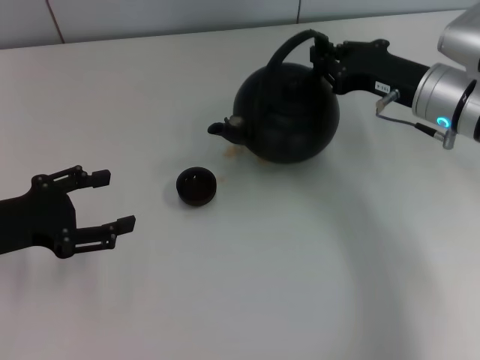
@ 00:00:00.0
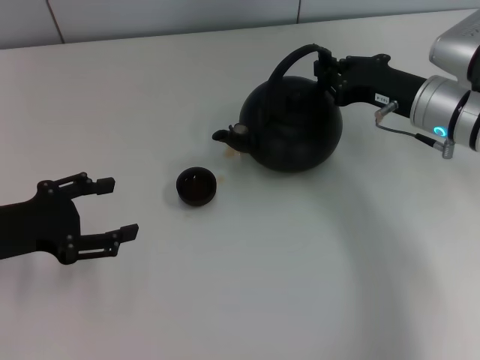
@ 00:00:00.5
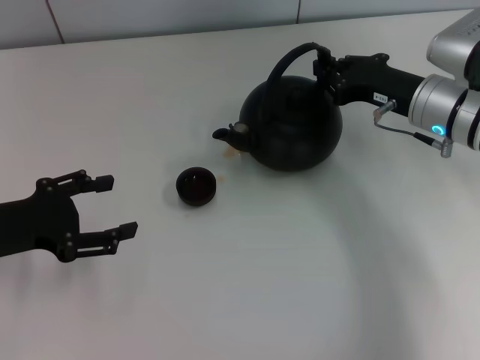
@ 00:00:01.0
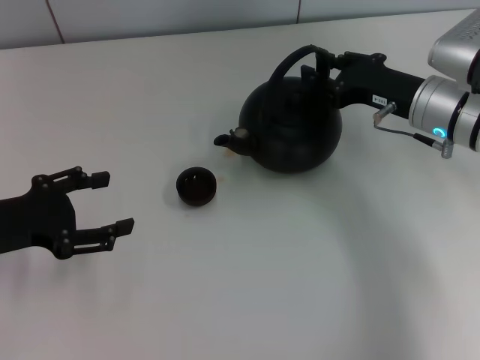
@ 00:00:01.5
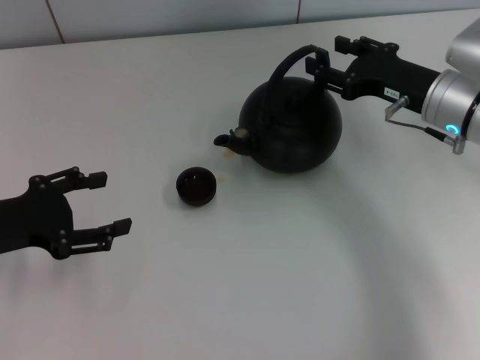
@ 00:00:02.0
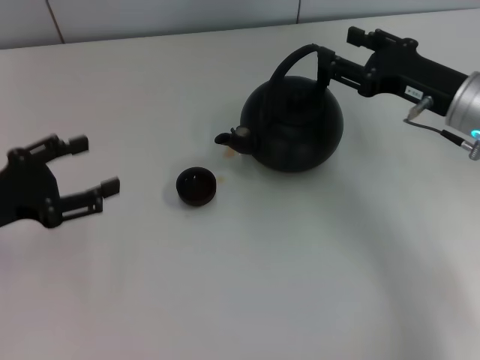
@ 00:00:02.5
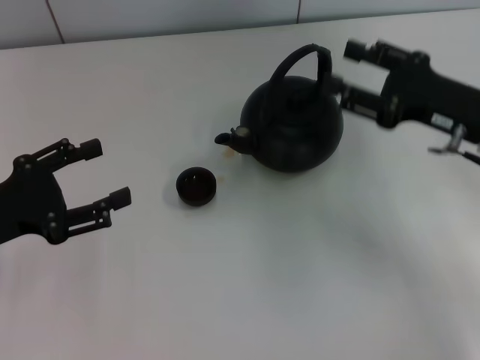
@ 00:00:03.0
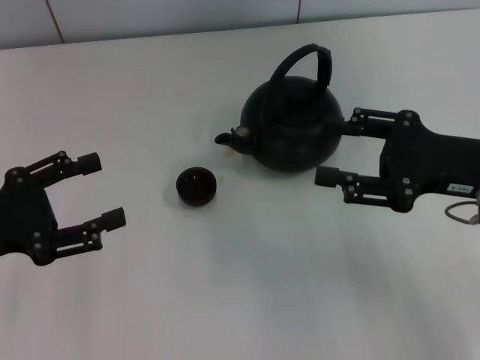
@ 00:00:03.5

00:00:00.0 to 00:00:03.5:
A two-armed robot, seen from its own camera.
Task of the whole recording: Grasp the handle of the teapot with one hand and pour tea into the teacup.
Step, 00:00:00.0 to 00:00:02.5: Put down the teapot with the right gripper.
00:00:00.0 to 00:00:02.0: The right gripper opens.
00:00:02.0 to 00:00:03.5: The right gripper shifts some 10 cm backward.

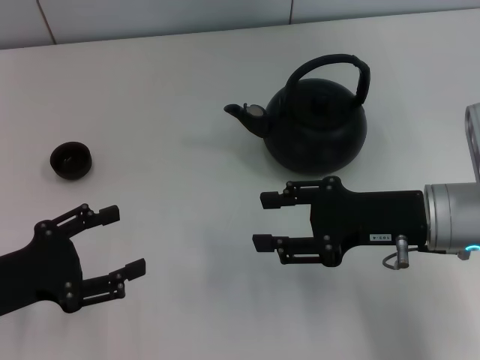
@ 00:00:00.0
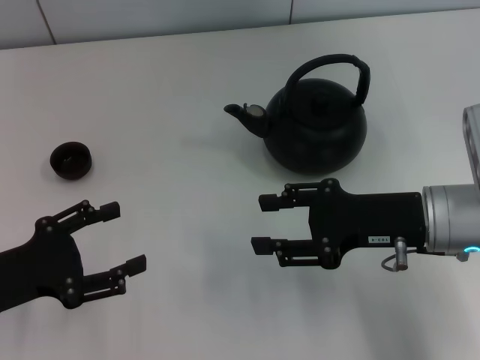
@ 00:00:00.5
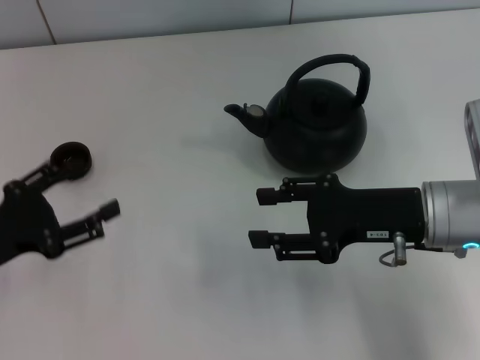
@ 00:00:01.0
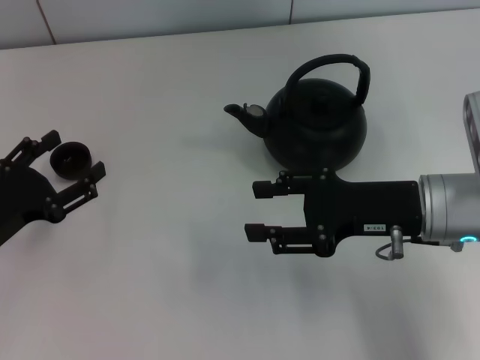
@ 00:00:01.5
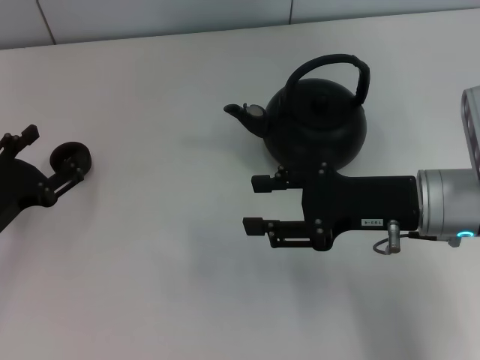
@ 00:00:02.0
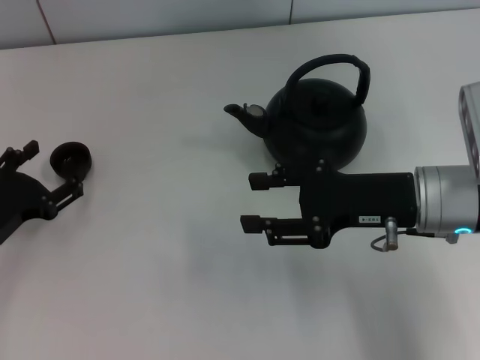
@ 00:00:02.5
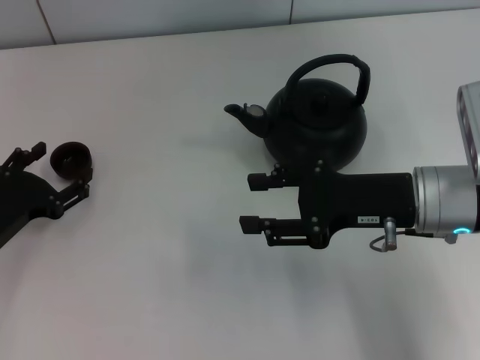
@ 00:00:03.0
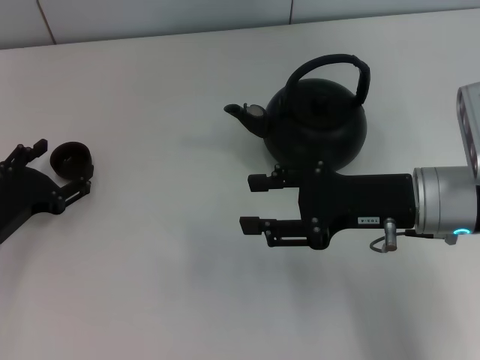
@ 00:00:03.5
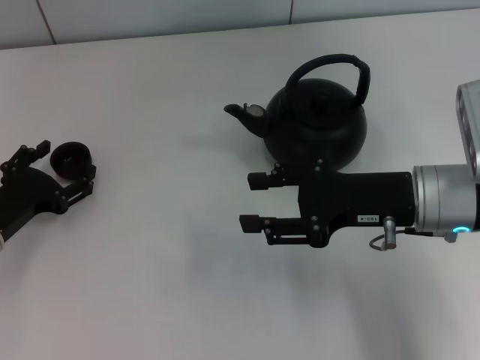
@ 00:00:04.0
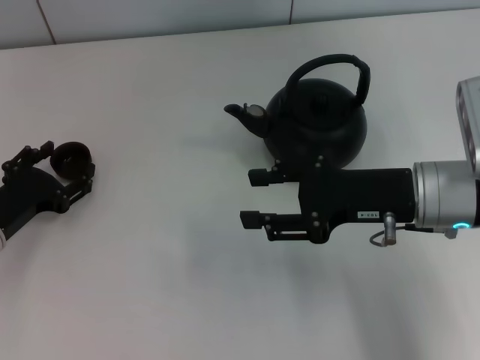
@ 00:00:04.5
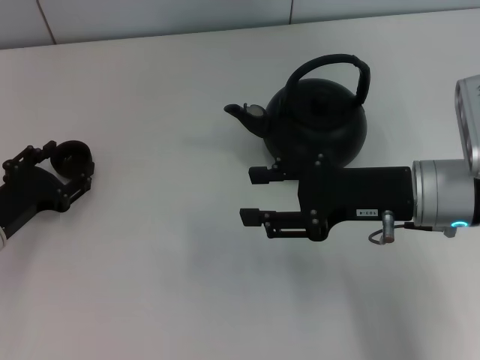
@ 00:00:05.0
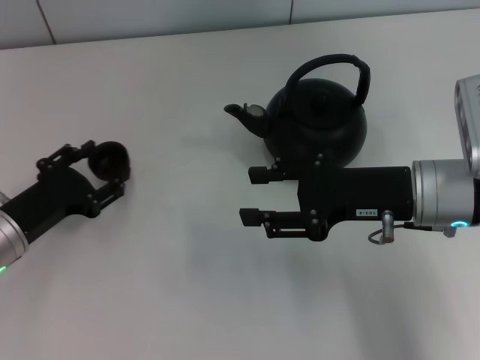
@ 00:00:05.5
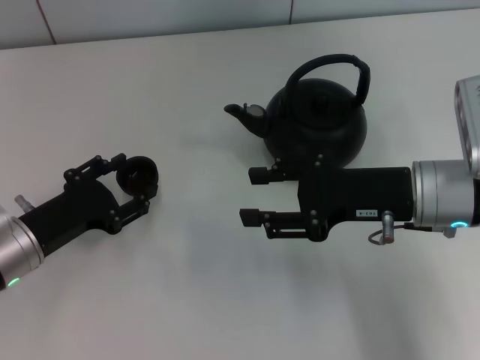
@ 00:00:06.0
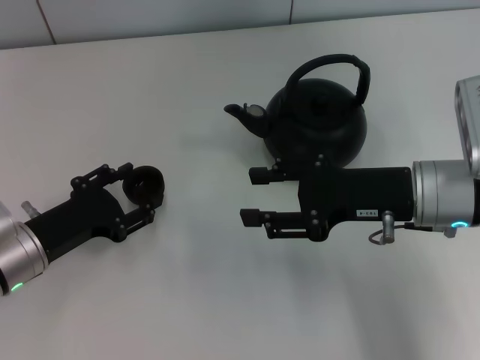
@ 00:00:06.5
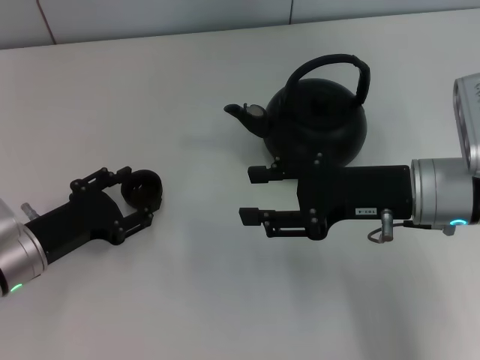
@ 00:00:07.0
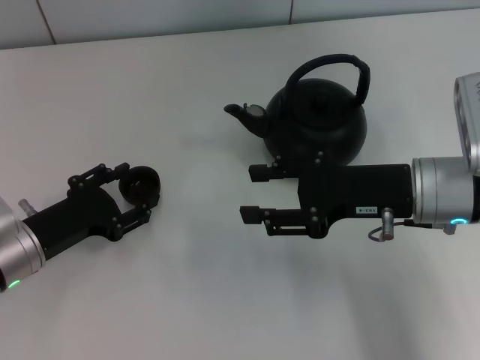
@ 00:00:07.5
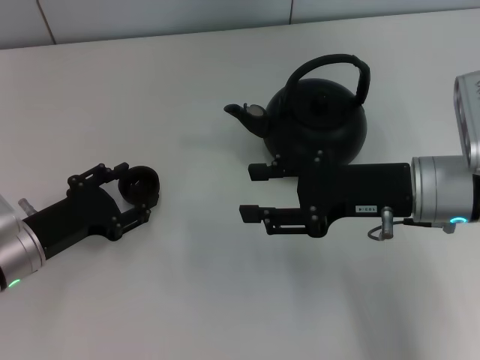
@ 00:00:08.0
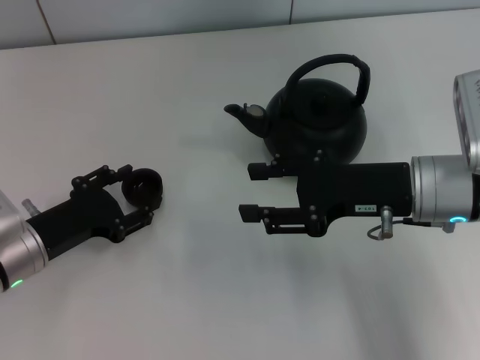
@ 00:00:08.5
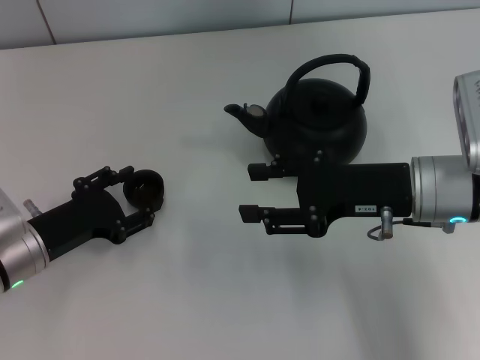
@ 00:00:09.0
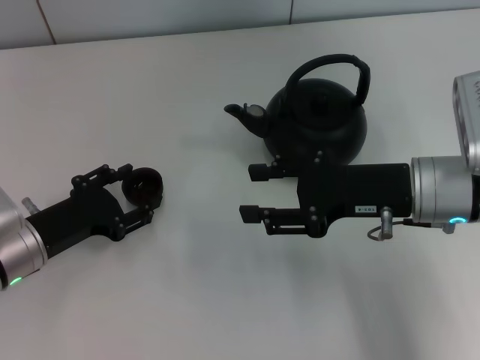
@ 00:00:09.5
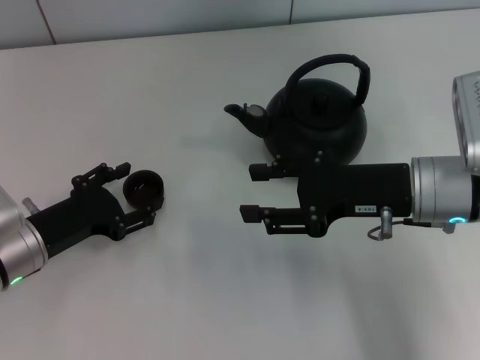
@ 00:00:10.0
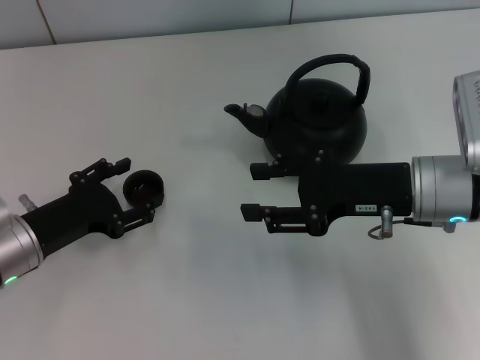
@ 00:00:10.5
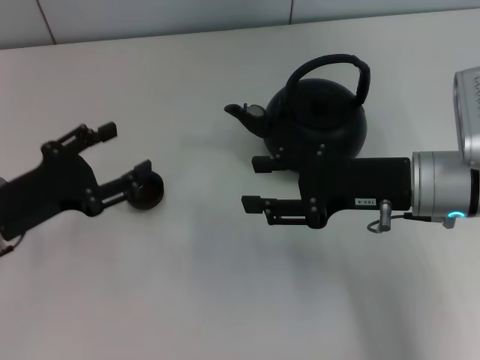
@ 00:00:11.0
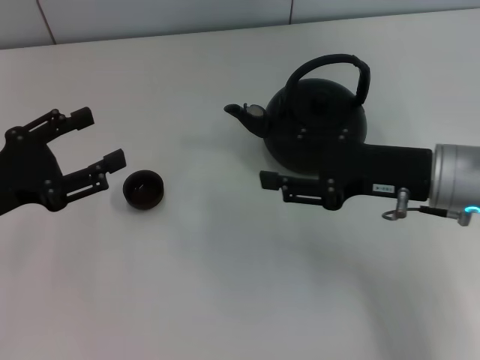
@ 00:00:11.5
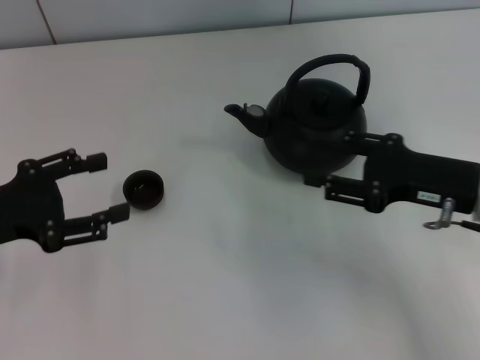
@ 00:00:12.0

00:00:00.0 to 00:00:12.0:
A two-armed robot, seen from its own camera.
Task of the whole recording: Grasp the handle of the teapot with one hand and pour tea into the teacup.
Step, 00:00:00.0 to 00:00:05.0: Pick up the teacup with the left gripper.
Step, 00:00:05.5 to 00:00:10.5: Place the teacup in the center of view with the left gripper.
00:00:00.0 to 00:00:02.0: The left gripper shifts by roughly 5 cm.
00:00:02.0 to 00:00:04.0: The grippers make only small movements.
00:00:04.0 to 00:00:06.0: The left gripper closes.
00:00:06.0 to 00:00:08.0: Both grippers stay about where they are.
00:00:08.0 to 00:00:10.0: Neither gripper changes place.
00:00:10.0 to 00:00:12.0: The left gripper heads upward and to the left, covering about 10 cm. Meanwhile the right gripper is displaced to the right by about 5 cm.

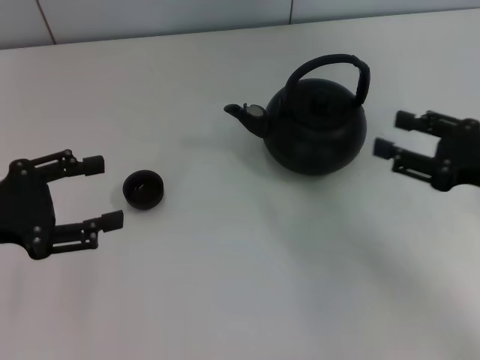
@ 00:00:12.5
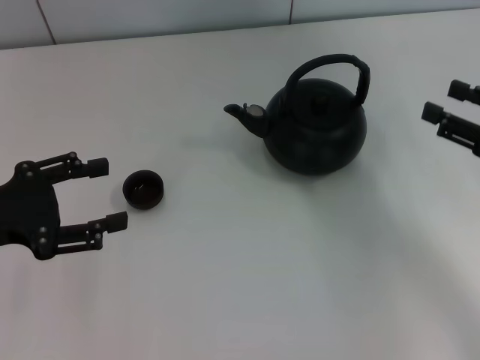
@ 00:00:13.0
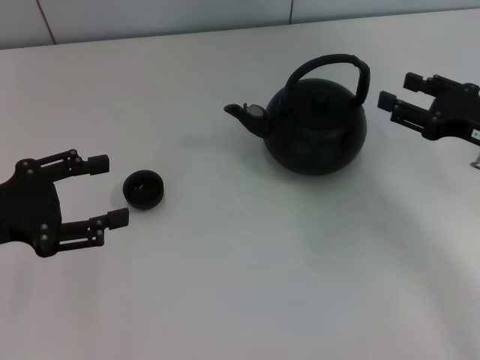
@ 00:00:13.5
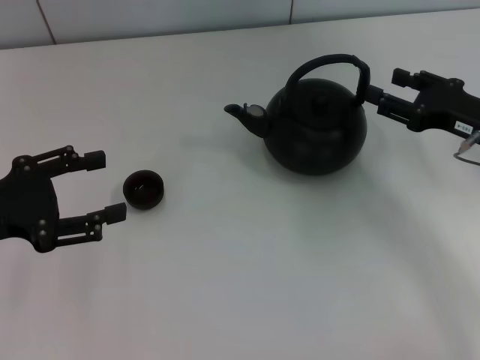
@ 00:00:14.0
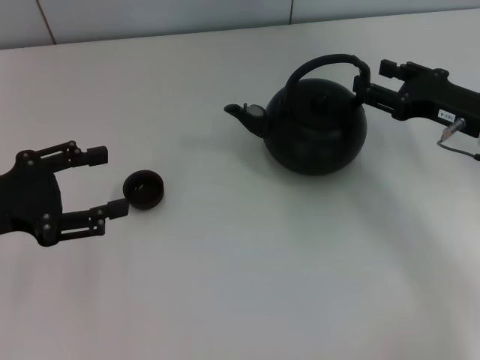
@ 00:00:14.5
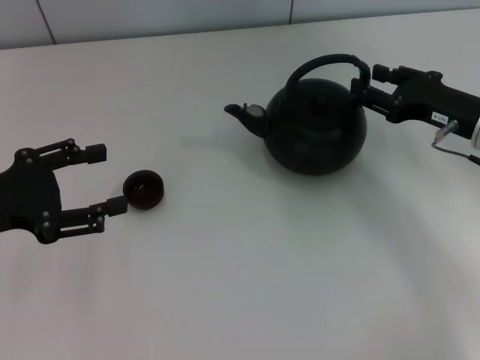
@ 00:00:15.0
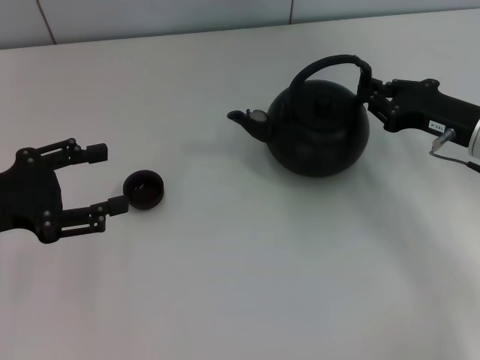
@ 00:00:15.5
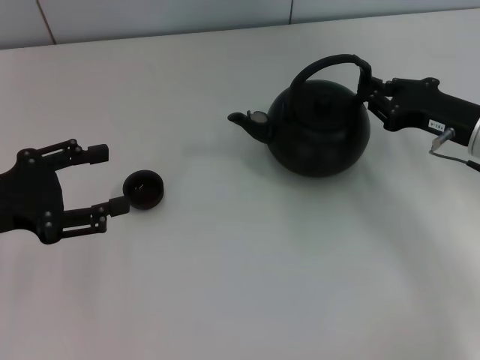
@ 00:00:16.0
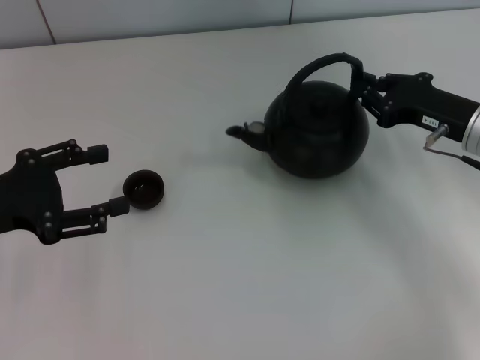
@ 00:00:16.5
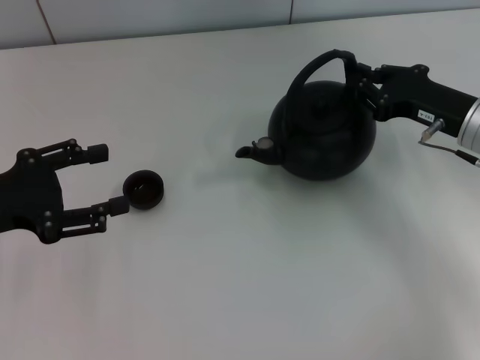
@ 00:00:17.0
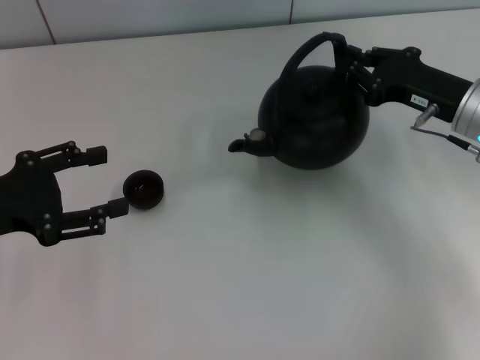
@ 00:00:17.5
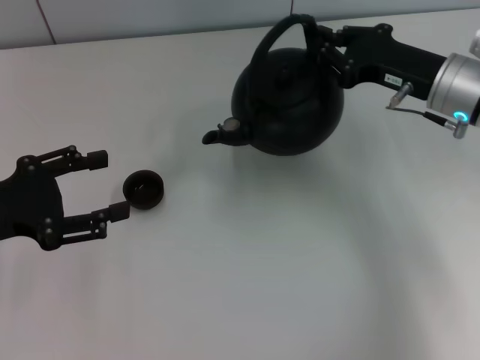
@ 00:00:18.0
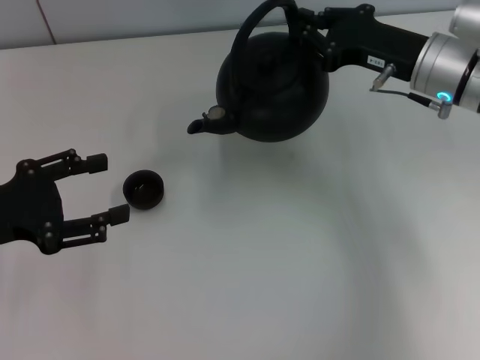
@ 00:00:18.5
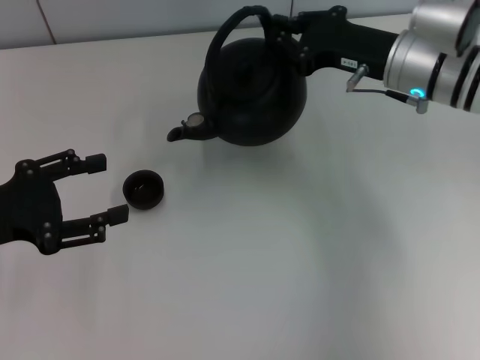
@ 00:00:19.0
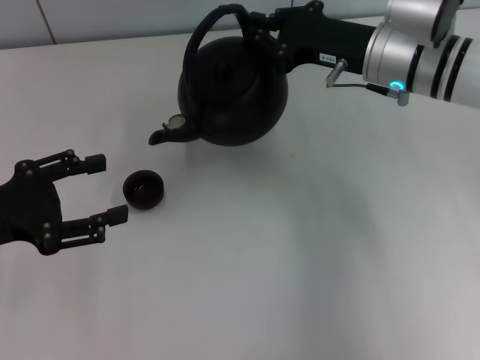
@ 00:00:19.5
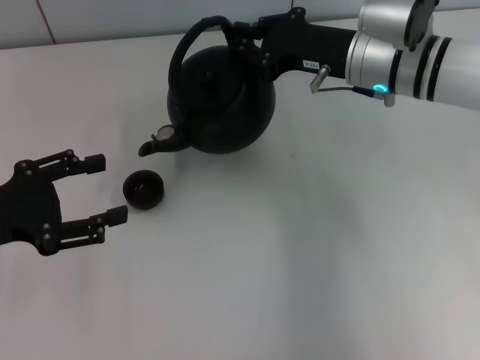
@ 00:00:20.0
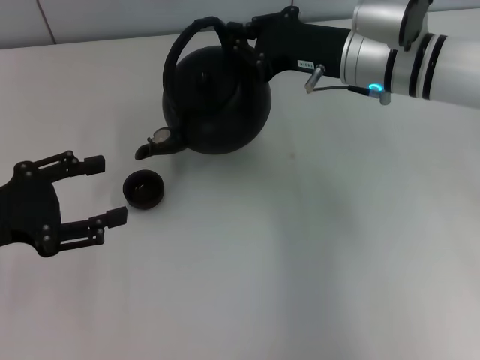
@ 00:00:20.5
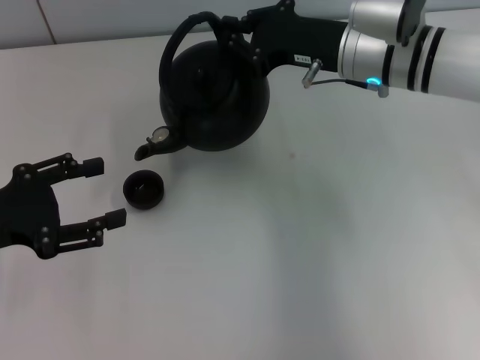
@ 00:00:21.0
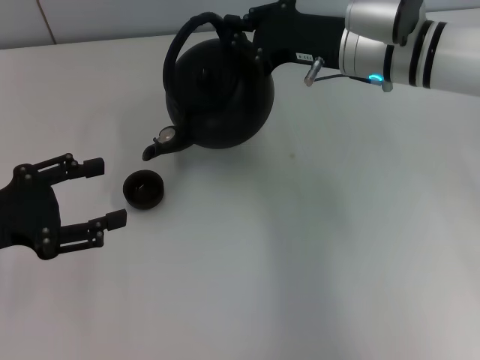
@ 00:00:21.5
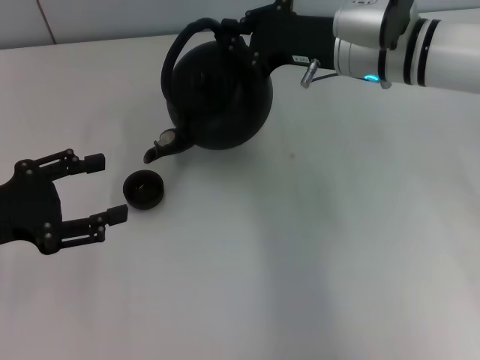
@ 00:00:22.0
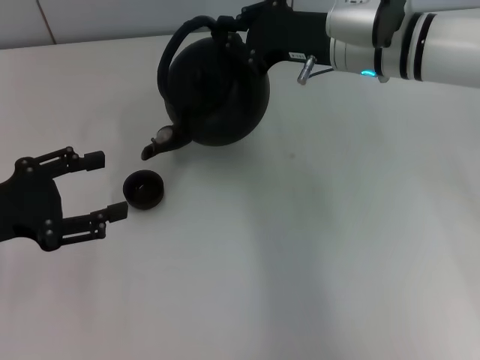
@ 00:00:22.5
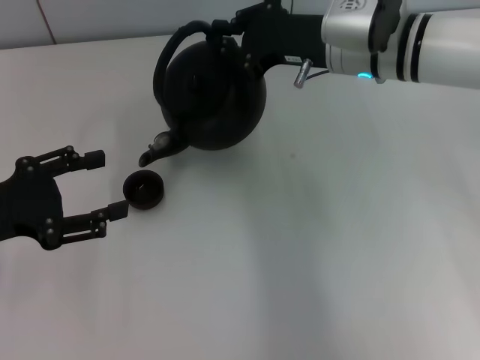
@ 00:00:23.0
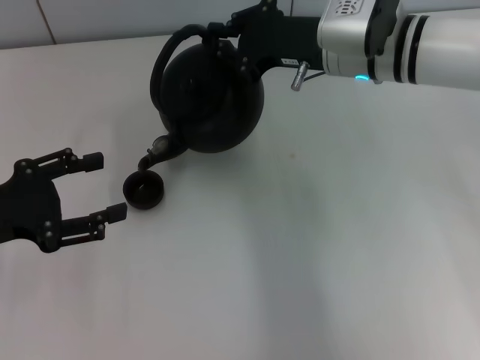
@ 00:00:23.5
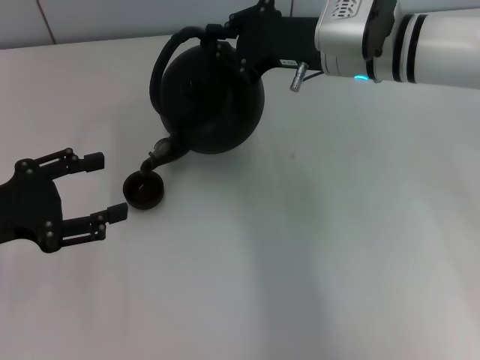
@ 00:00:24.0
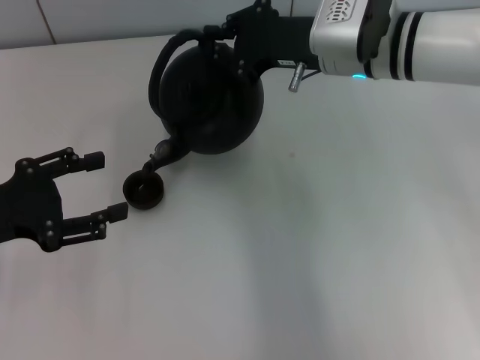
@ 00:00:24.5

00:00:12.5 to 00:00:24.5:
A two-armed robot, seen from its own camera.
Task of the whole recording: Grasp the handle of the teapot with one hand and pour tea into the teacup.
Step, 00:00:12.5 to 00:00:18.0: Pick up the teapot with the right gripper.
00:00:12.5 to 00:00:14.5: The right gripper goes about 10 cm forward.
00:00:14.5 to 00:00:16.5: The right gripper closes up.
00:00:16.5 to 00:00:18.5: The right gripper moves to the left, about 5 cm.
00:00:18.5 to 00:00:20.5: The right gripper shifts about 5 cm to the left.
00:00:20.5 to 00:00:24.5: There are only small adjustments of the grippers.
